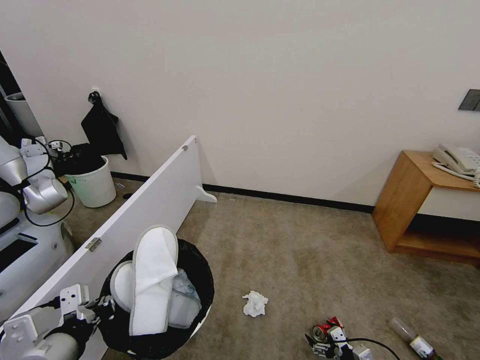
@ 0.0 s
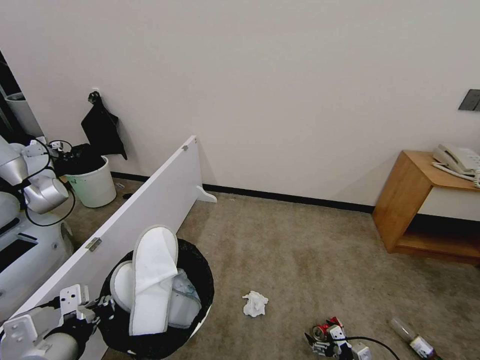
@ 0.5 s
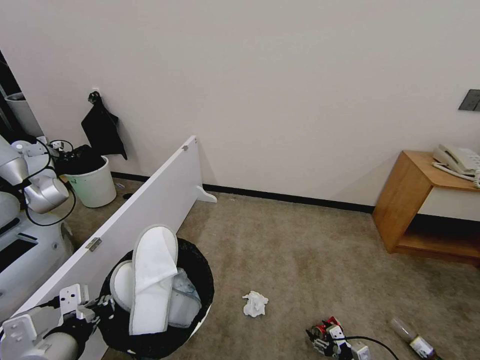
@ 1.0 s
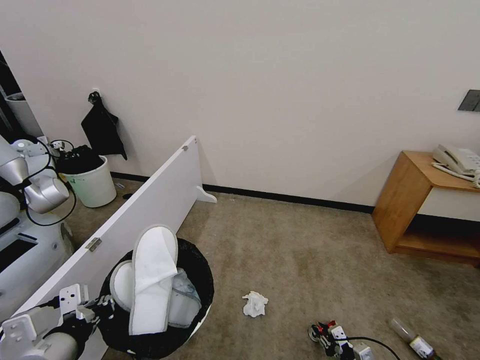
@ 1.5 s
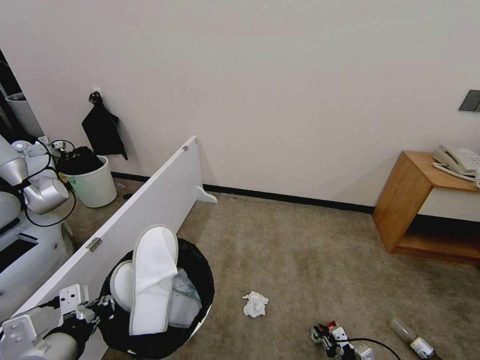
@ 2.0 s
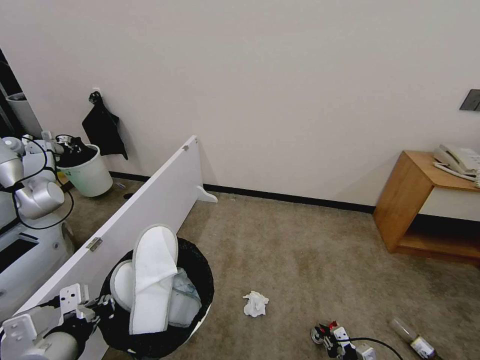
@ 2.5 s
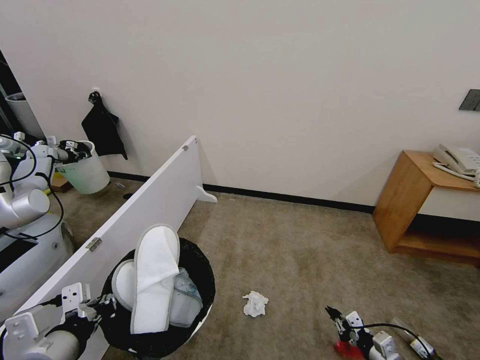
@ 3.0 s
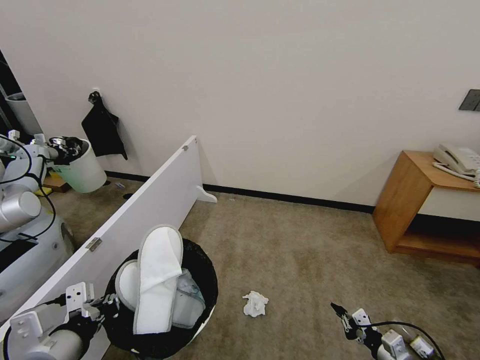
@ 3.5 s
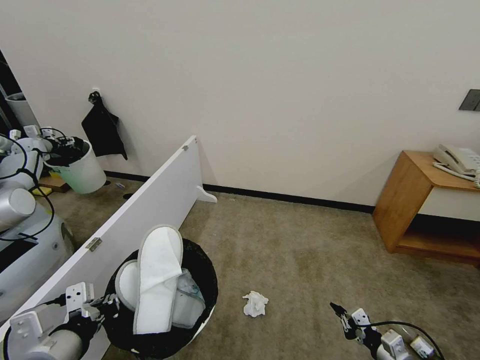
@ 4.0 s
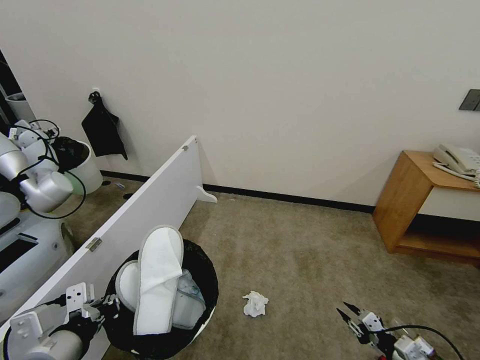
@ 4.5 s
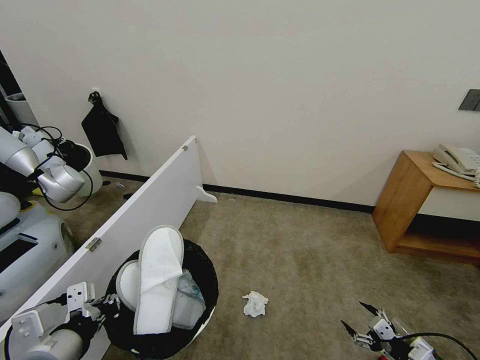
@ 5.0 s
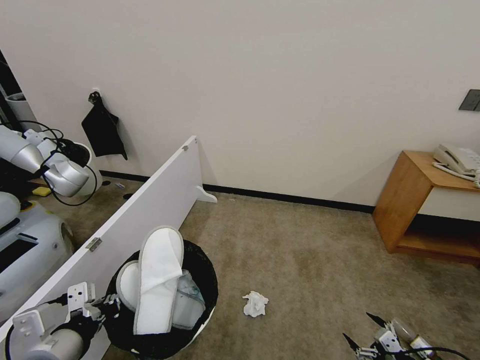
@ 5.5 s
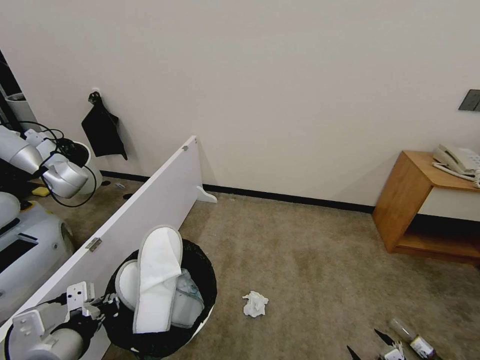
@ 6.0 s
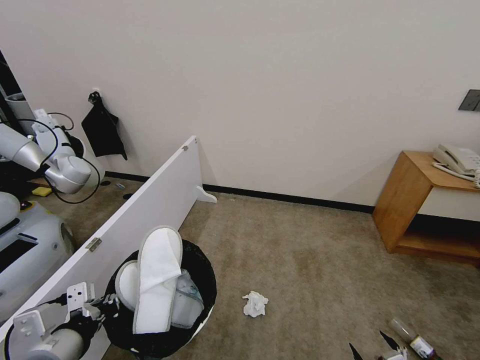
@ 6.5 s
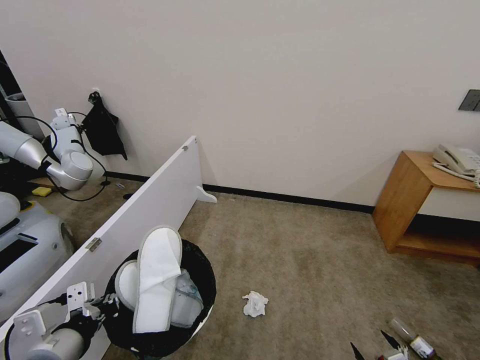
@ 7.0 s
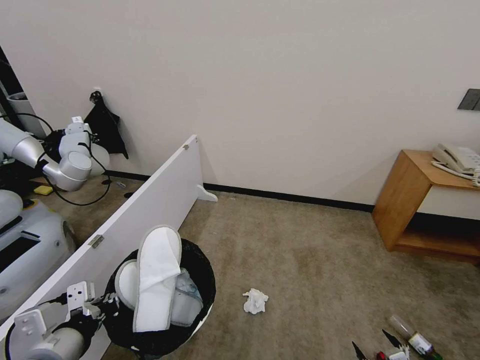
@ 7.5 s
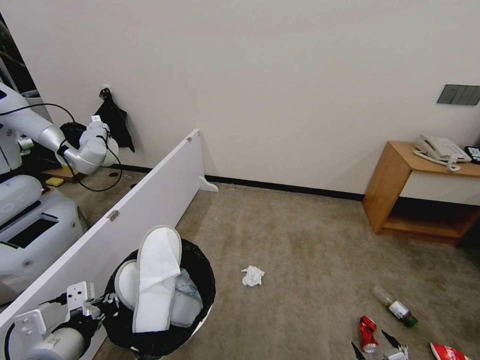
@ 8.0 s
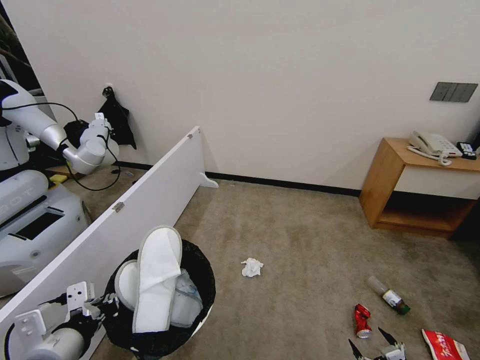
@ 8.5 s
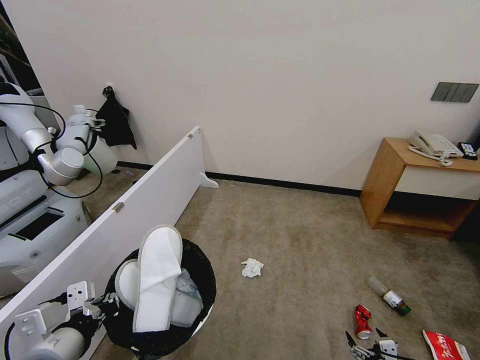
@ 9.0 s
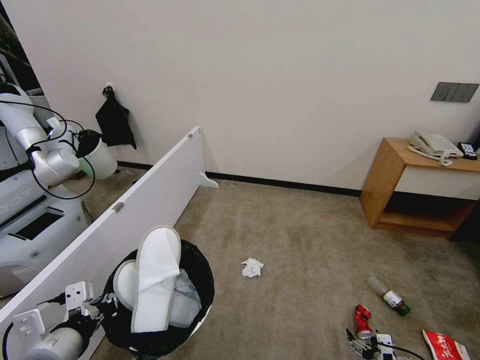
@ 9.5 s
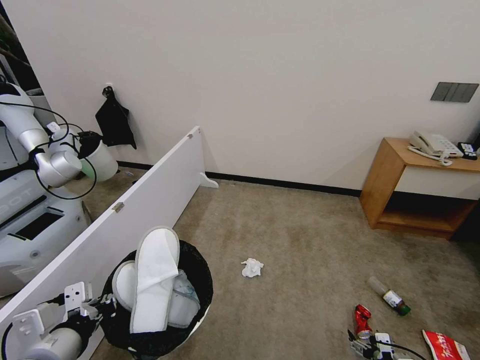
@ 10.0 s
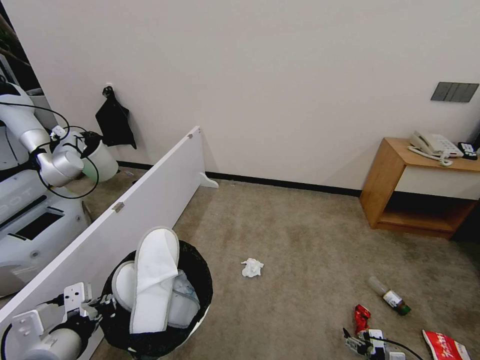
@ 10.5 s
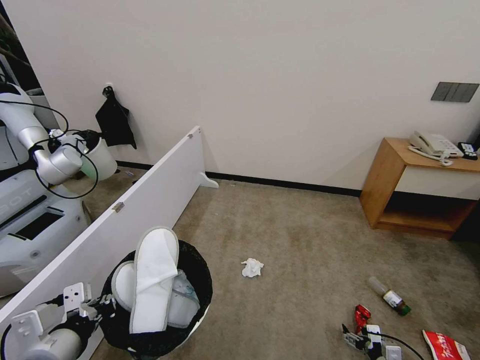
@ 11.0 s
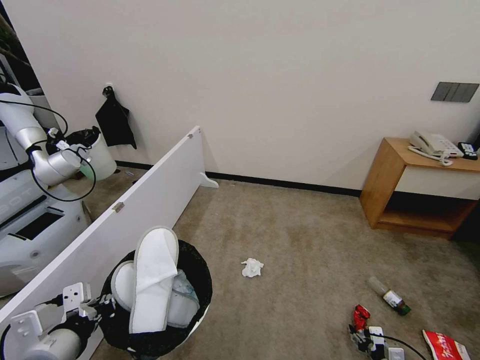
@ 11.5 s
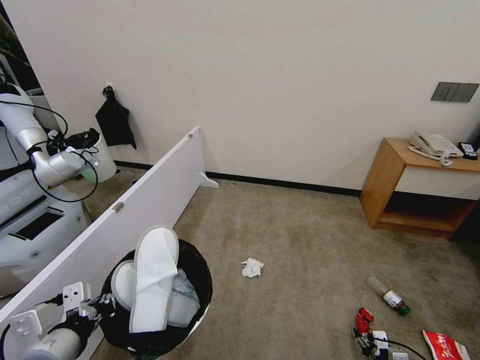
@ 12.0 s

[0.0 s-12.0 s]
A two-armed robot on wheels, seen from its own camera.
Task of the whole recording: Pick up the trash bin, then pick up the garbage from the floor and place it into the trash bin.
2.0 to 4.0 s: The right gripper is displaced upward by roughly 10 cm.
4.0 to 6.0 s: The right gripper travels backward by some 10 cm, and opens.
8.0 to 10.0 s: The right gripper goes roughly 10 cm forward and downward.
10.0 to 12.0 s: The right gripper closes.

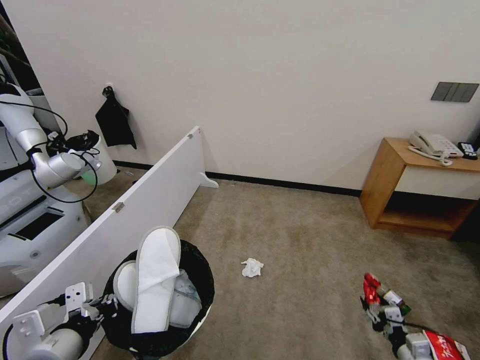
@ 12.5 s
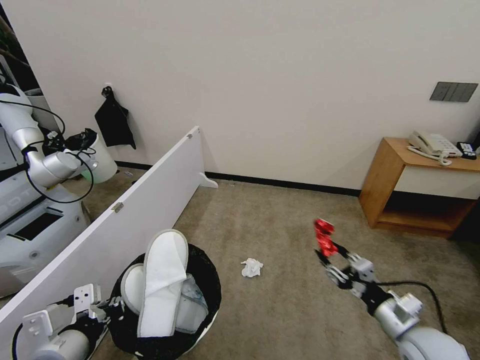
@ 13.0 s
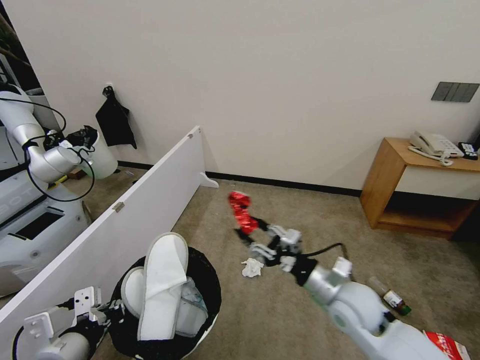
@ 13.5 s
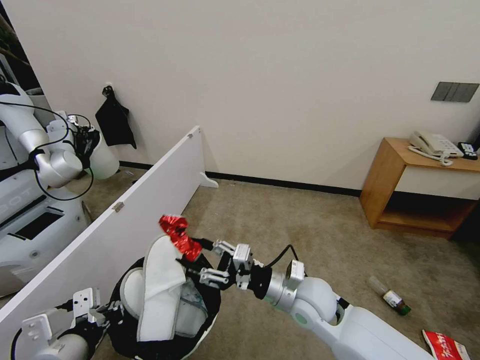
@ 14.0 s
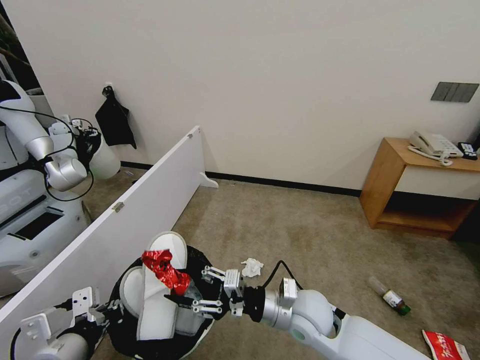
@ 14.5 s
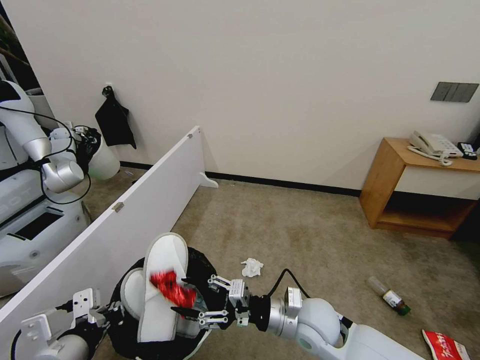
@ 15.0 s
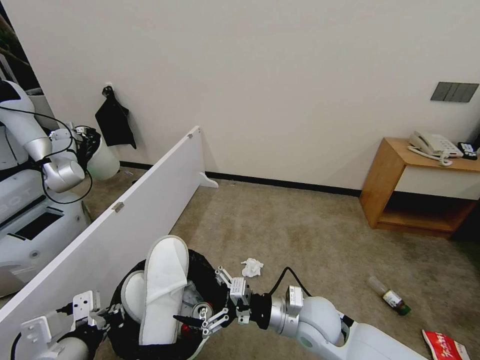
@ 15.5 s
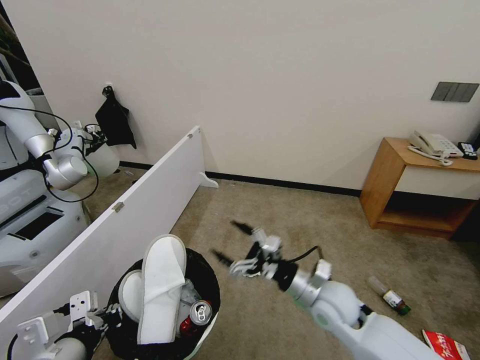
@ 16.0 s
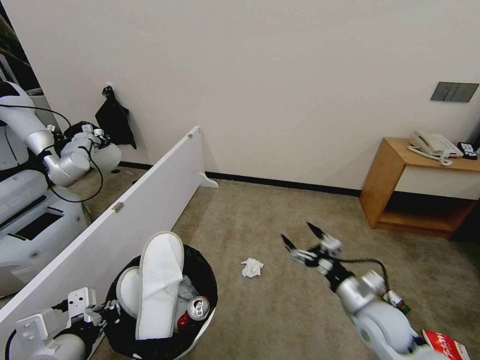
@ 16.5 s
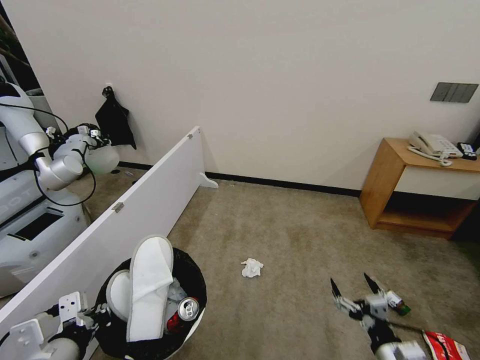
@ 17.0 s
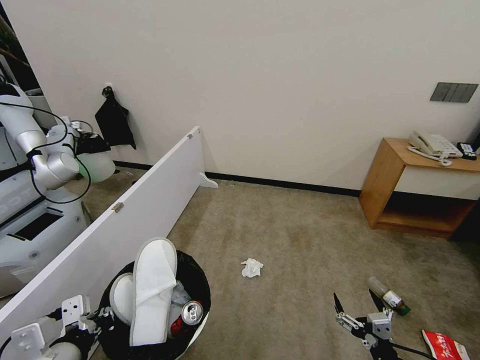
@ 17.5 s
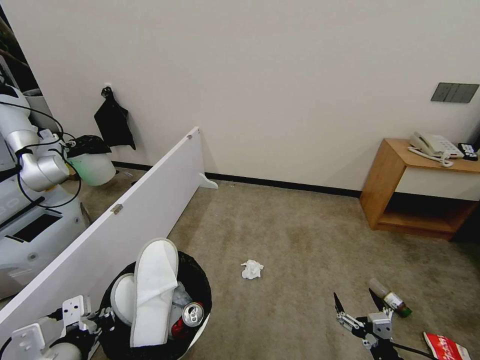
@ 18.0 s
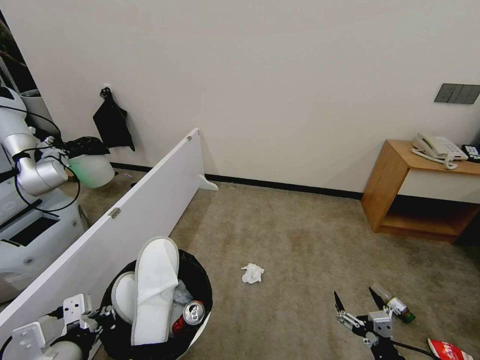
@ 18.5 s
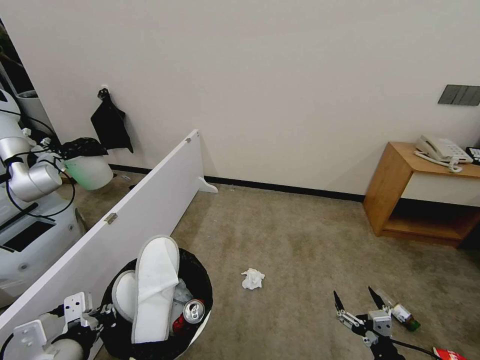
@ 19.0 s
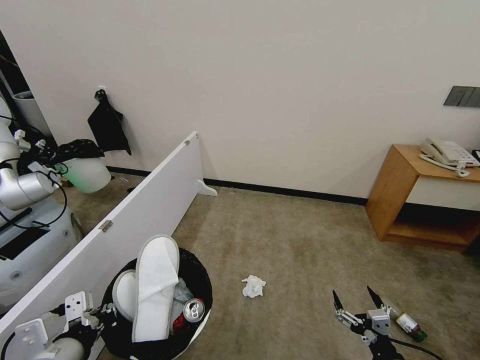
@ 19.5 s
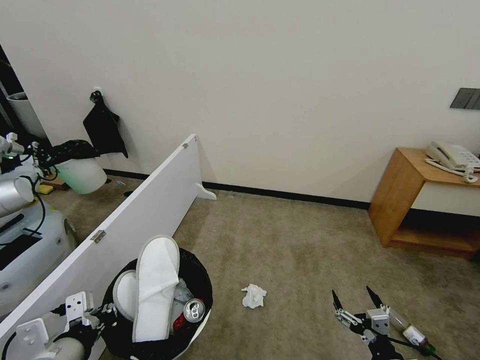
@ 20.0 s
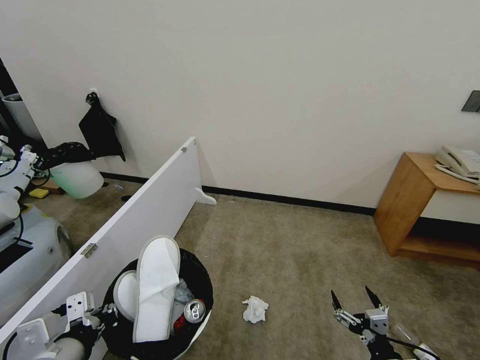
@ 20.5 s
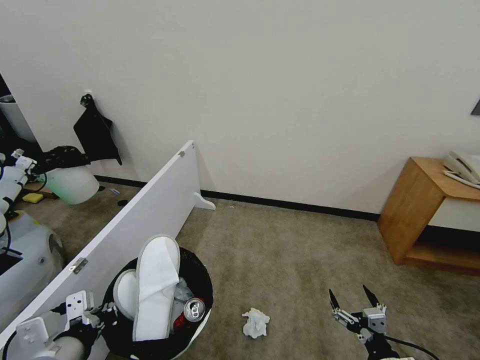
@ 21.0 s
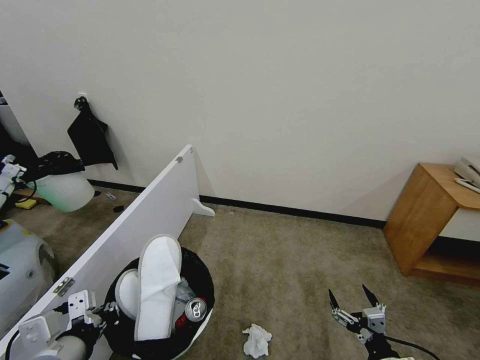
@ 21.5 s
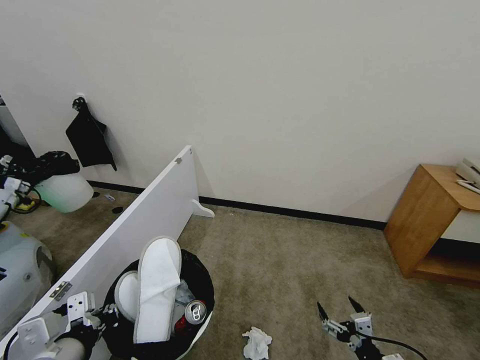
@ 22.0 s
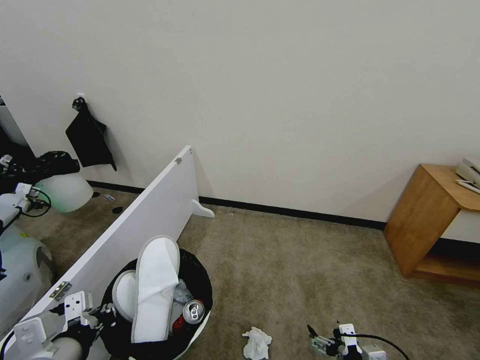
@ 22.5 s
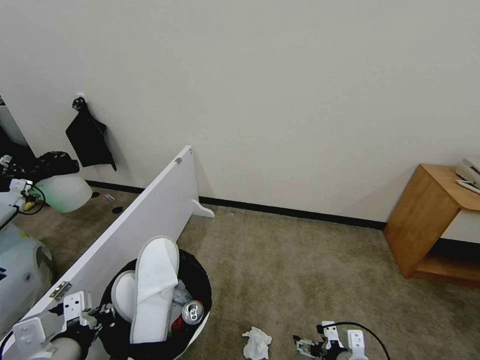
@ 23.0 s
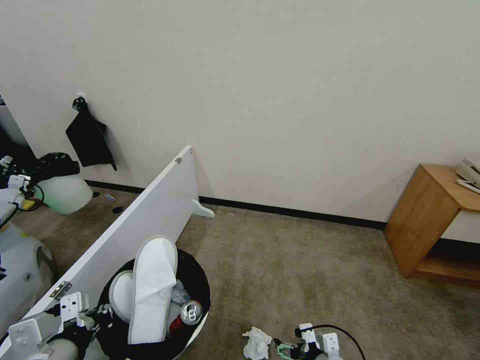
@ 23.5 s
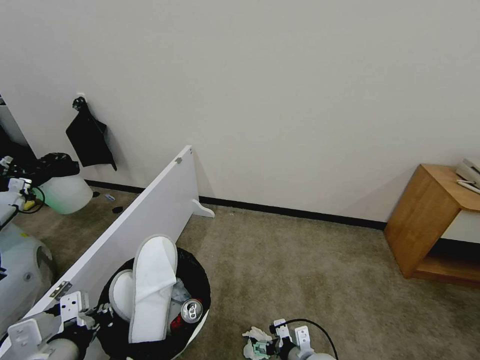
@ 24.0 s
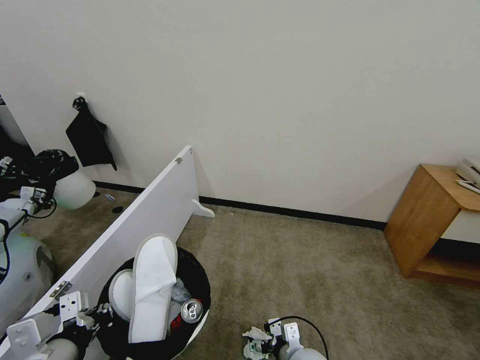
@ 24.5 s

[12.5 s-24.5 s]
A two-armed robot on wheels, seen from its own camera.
Task of the whole recording: Pick up the trash bin, then pick up the garbage from the floor and place it into the trash bin.
12.5 to 14.5 s: The right gripper travels to the left and upward by roughly 35 cm.
14.5 to 16.5 s: The right gripper moves to the right, roughly 15 cm, and opens up.
16.5 to 18.5 s: The right gripper goes roughly 15 cm backward and downward.
22.5 to 24.5 s: The right gripper moves to the left and forward, roughly 15 cm.

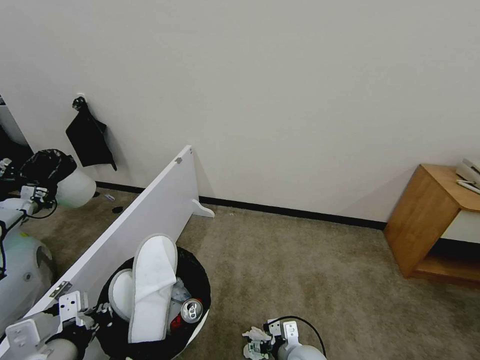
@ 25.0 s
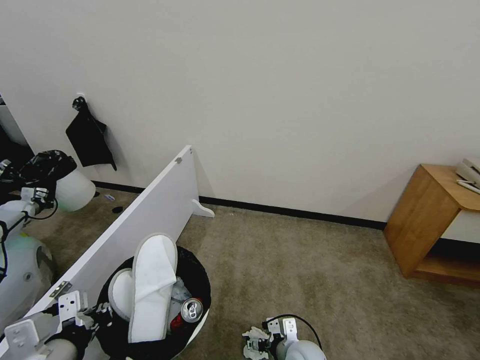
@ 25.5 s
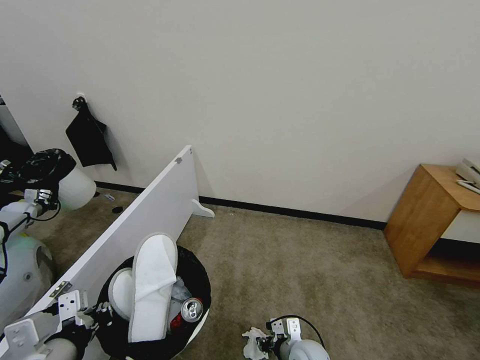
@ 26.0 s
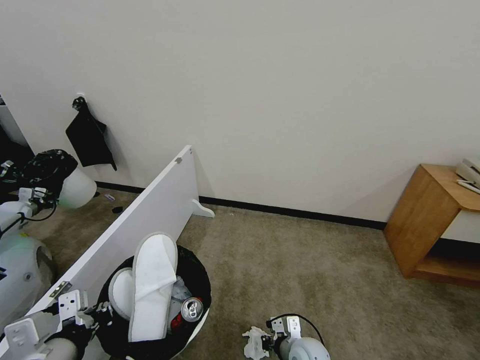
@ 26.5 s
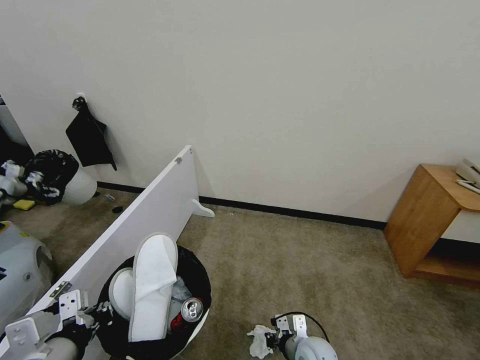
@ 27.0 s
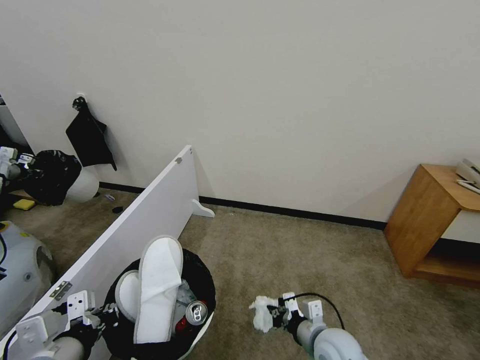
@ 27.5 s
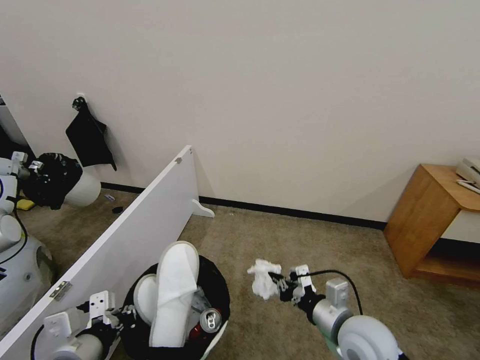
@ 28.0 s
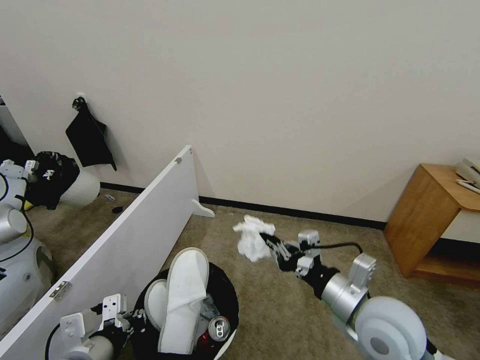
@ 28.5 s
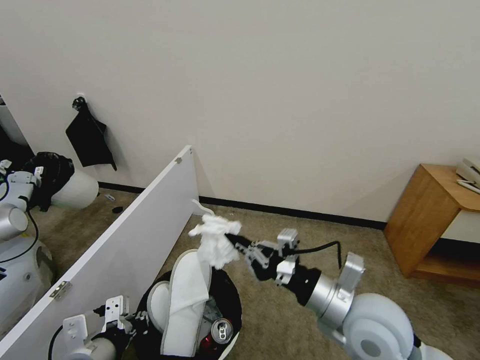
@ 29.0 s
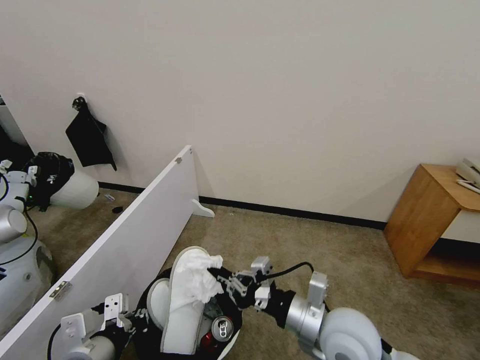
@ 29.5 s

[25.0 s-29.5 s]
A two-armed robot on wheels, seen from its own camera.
Task of the whole recording: Pick up the trash bin, then pick up the garbage from the floor and place it into the trash bin.
25.0 to 27.0 s: The right gripper closes up.
27.0 to 29.5 s: The right gripper moves upward, some 25 cm.
